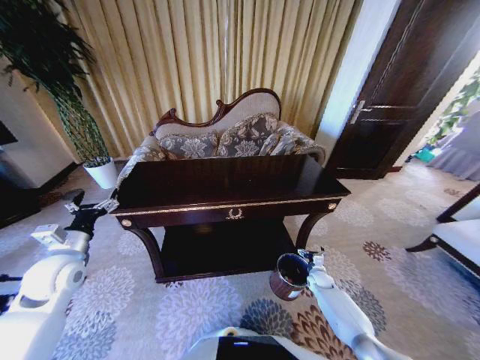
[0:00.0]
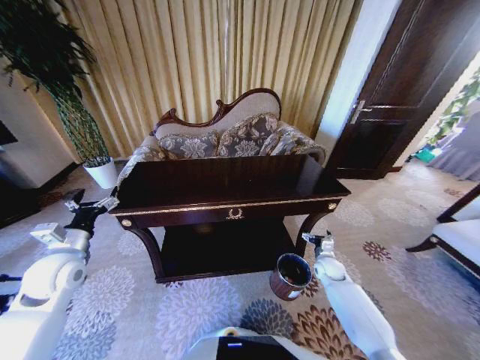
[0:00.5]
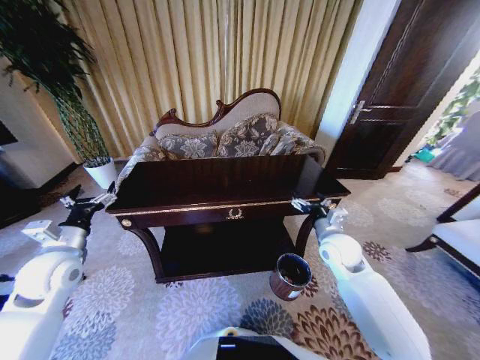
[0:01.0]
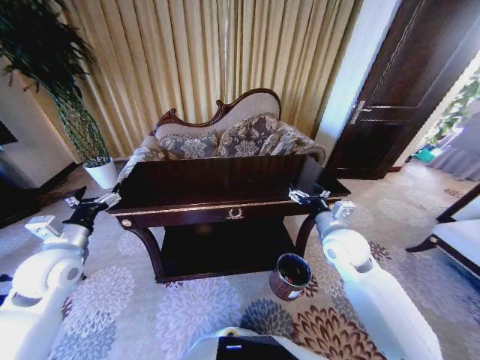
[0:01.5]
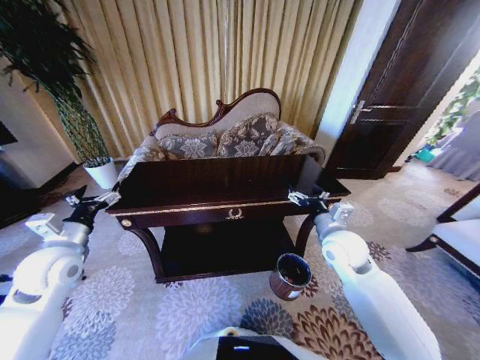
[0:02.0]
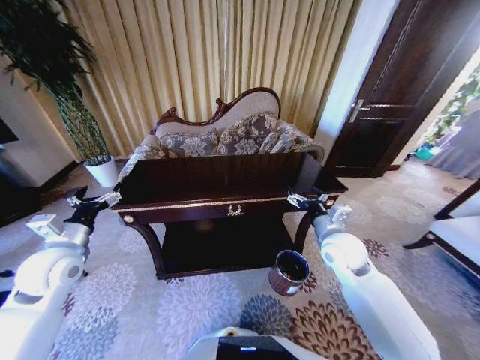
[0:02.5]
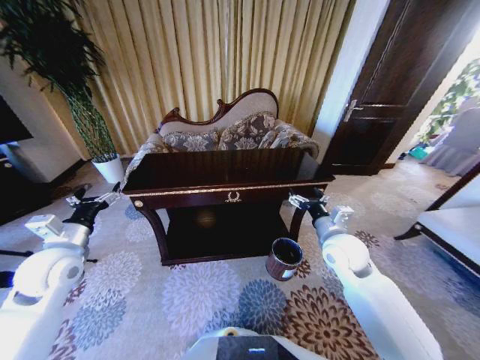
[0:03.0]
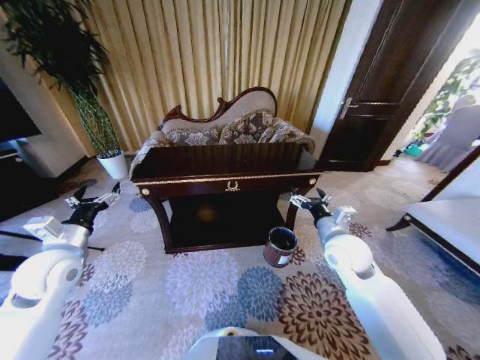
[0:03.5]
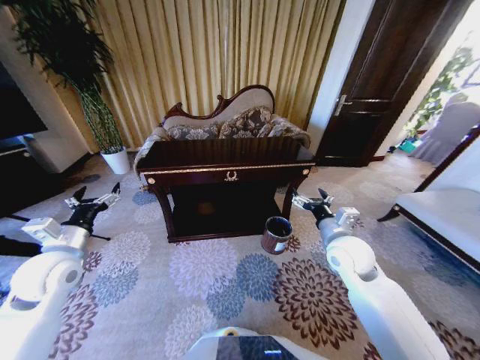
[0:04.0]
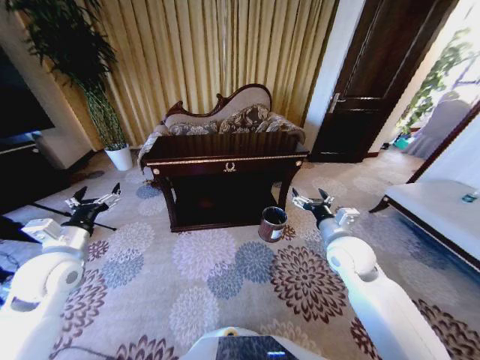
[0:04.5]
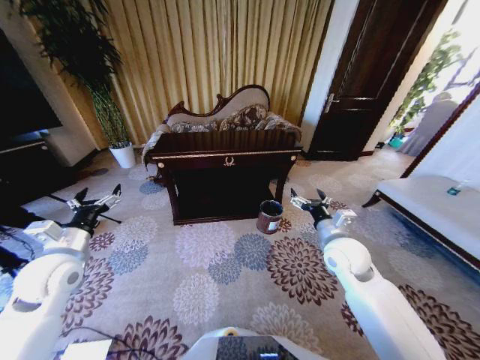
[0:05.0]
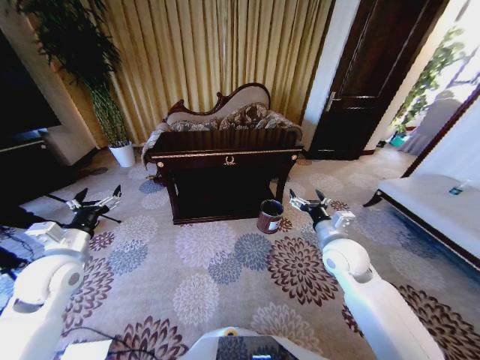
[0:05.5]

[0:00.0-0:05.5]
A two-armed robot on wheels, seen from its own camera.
Task of the whole recording: Move to the front of the table and place the trash on the table into the trash bin.
0:00.0 to 0:02.0: The right gripper goes some 35 cm upward.

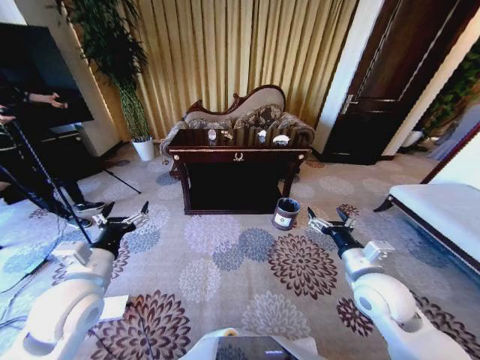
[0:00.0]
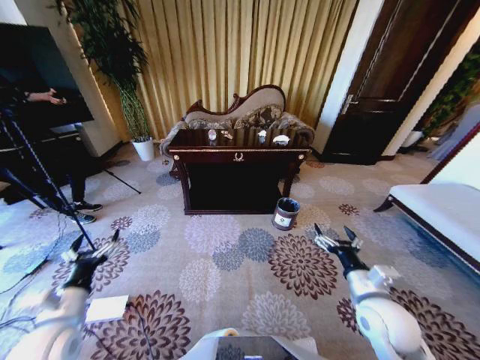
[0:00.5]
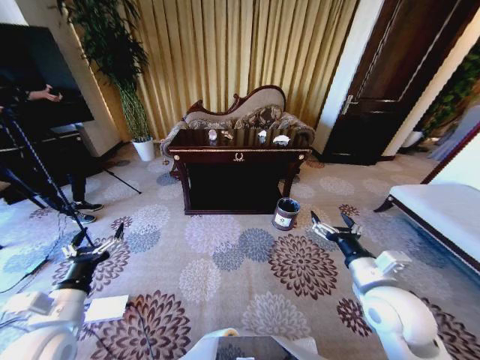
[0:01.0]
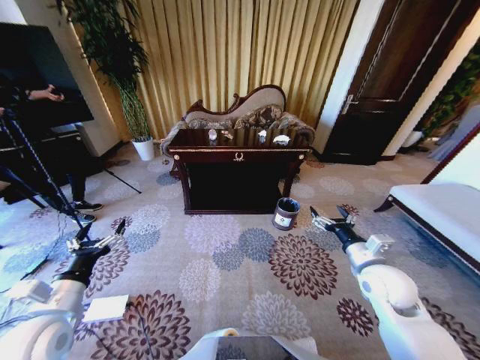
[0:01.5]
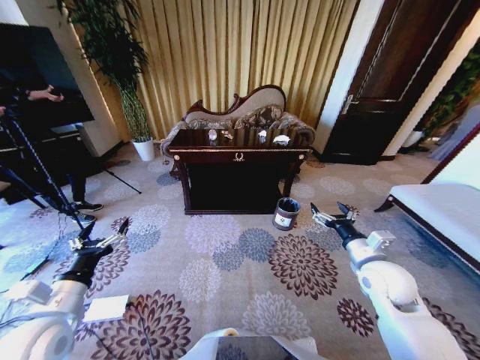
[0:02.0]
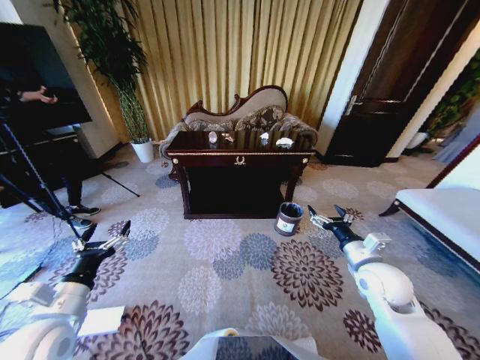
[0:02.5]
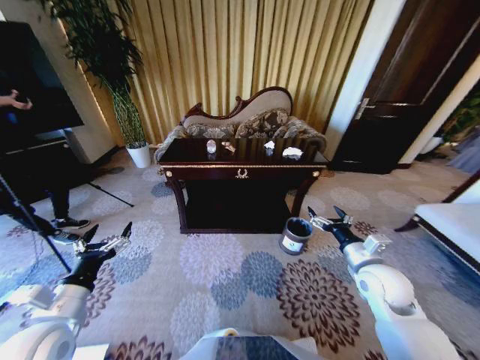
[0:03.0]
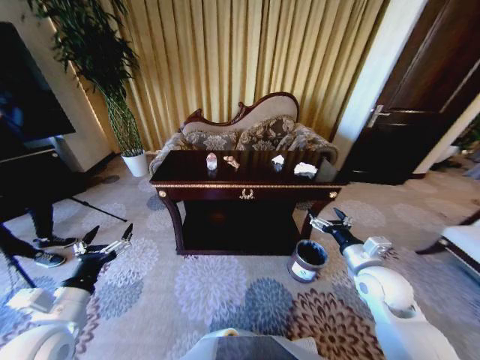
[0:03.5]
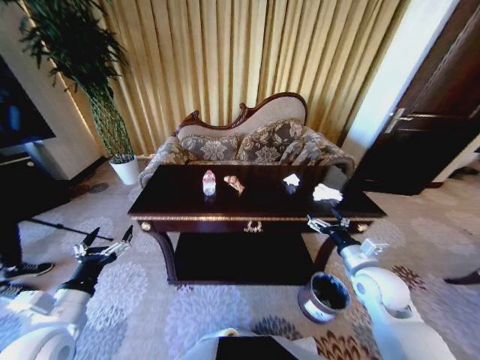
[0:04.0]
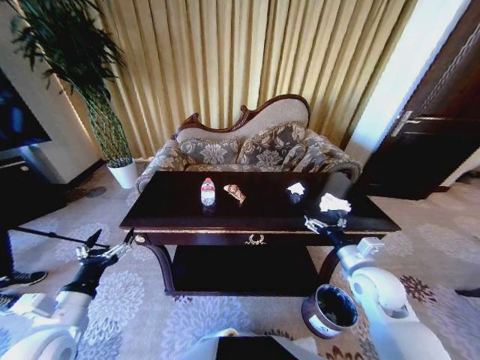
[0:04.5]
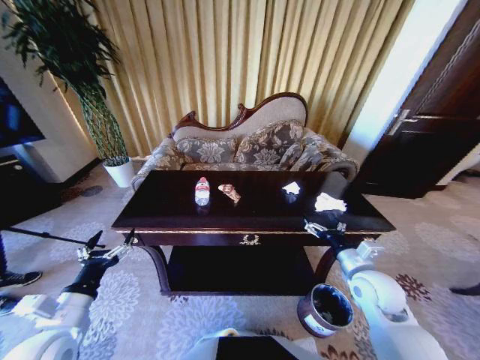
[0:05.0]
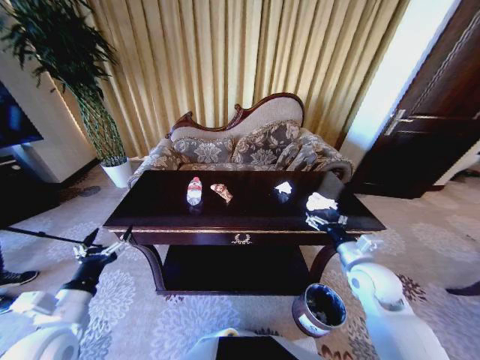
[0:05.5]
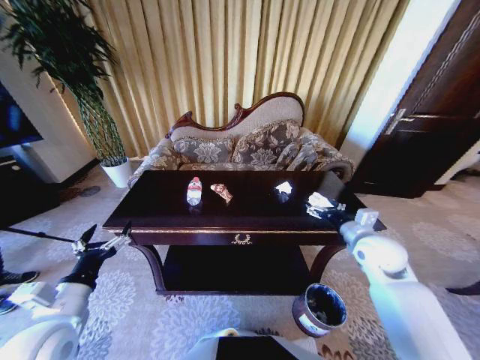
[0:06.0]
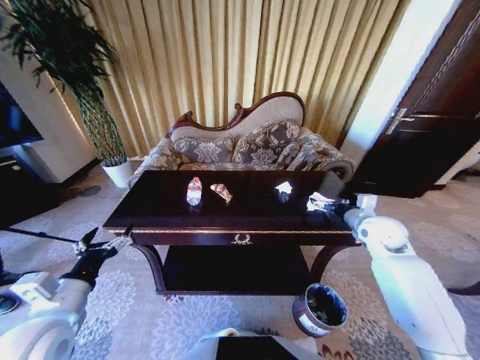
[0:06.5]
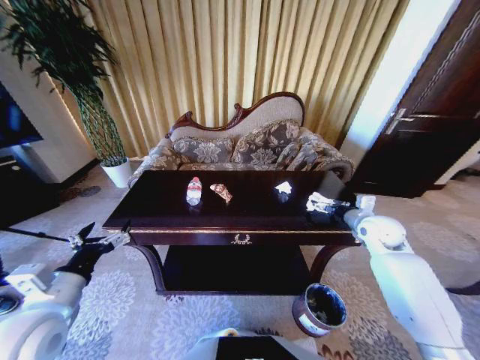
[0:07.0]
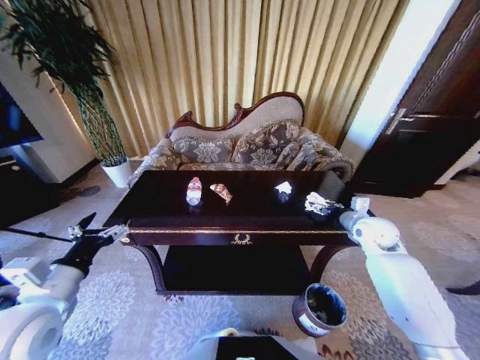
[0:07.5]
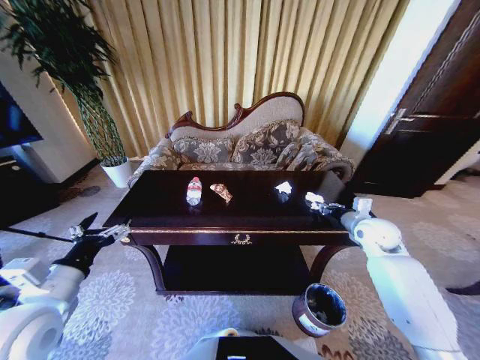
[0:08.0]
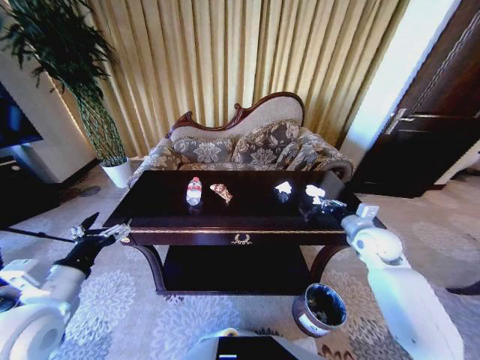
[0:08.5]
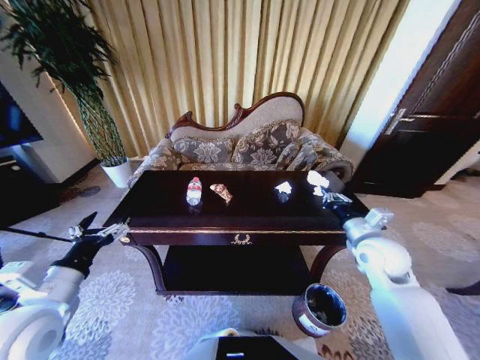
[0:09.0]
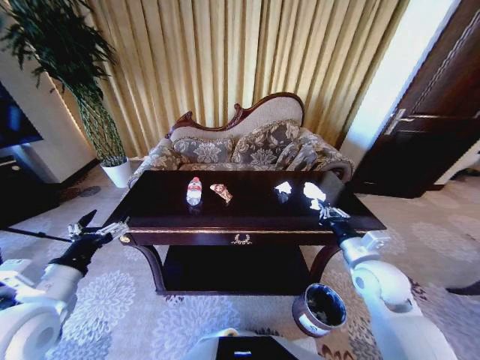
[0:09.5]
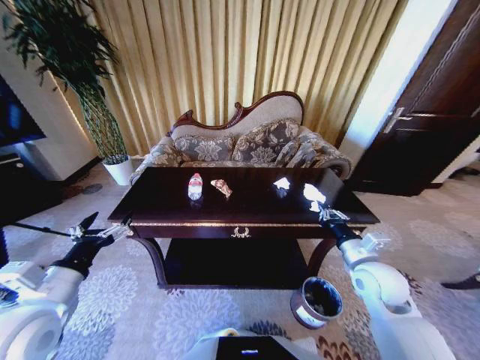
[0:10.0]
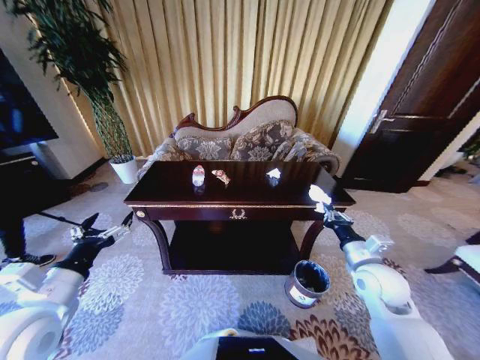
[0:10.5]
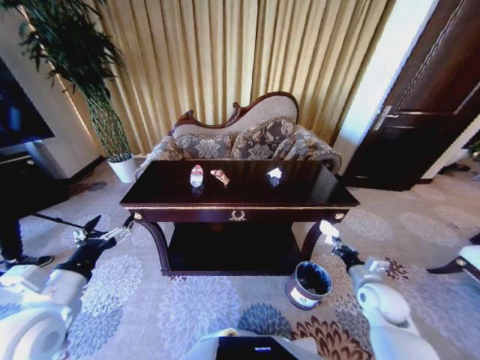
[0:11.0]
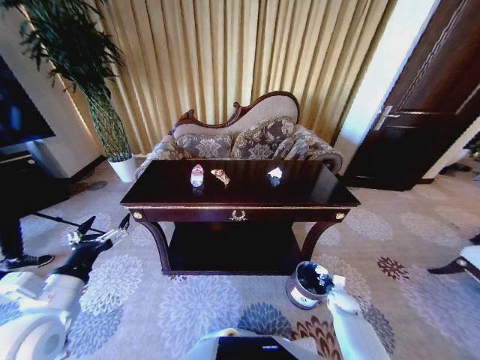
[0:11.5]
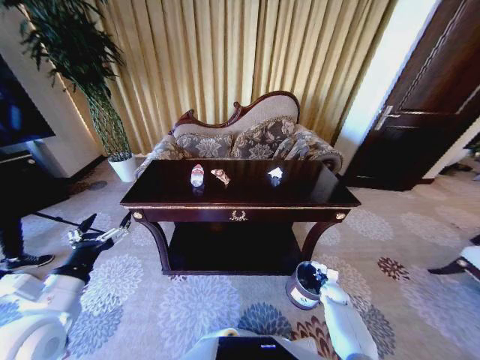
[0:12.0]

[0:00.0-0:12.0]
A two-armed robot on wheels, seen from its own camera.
Task of the whole recording: Move to the front of the table and place the trash on the table into the trash bin.
0:04.0 to 0:06.0: The right gripper shifts about 5 cm forward.
0:06.0 to 0:08.0: The left gripper moves about 5 cm, while the right gripper heads forward, covering some 5 cm, and closes up.
0:08.0 to 0:10.0: The right gripper is displaced backward and to the left by roughly 15 cm.
0:10.0 to 0:12.0: The right gripper shifts some 35 cm downward, and opens its fingers.

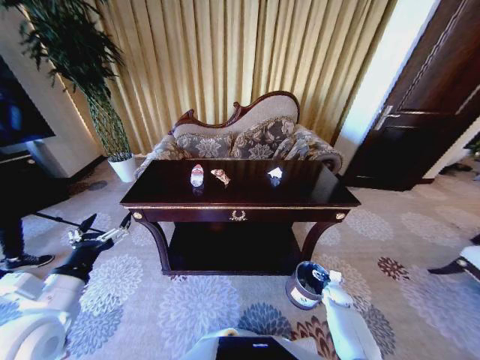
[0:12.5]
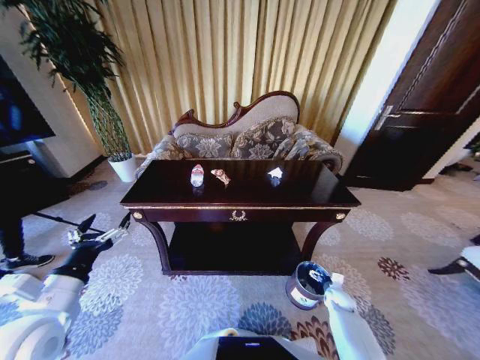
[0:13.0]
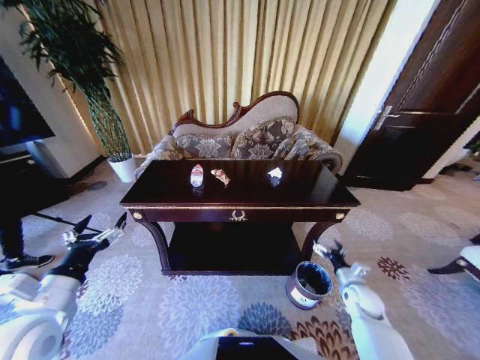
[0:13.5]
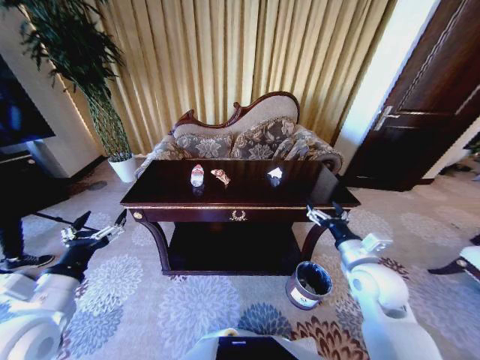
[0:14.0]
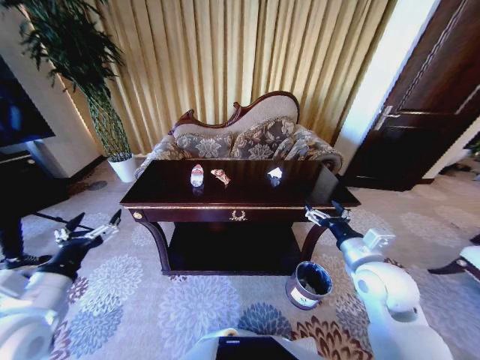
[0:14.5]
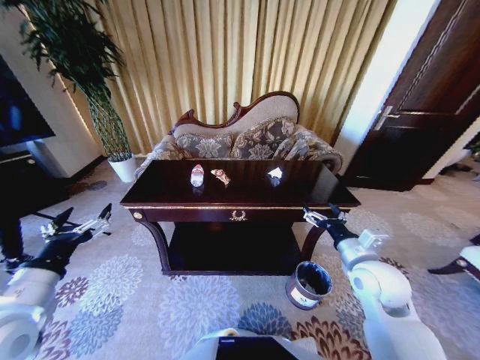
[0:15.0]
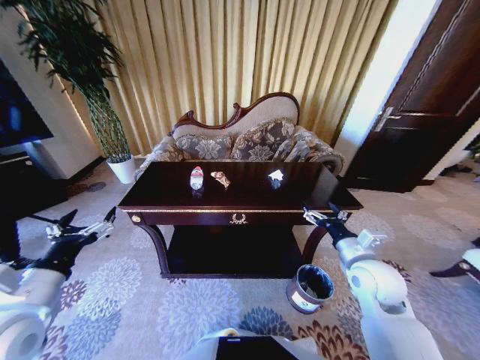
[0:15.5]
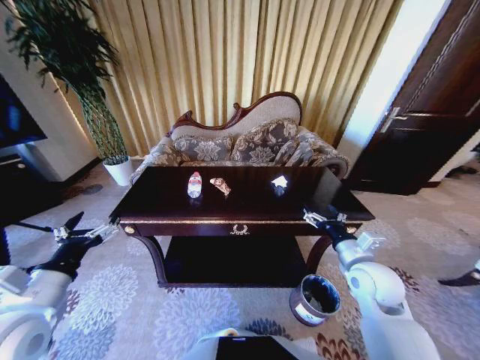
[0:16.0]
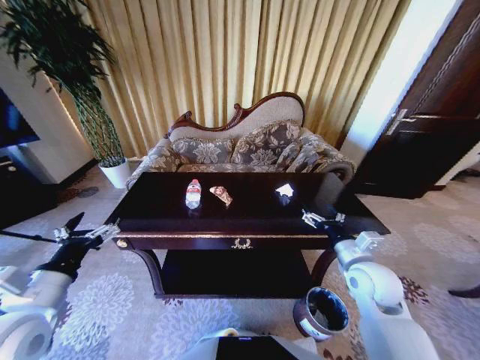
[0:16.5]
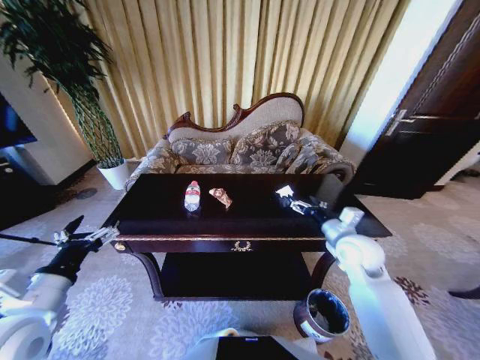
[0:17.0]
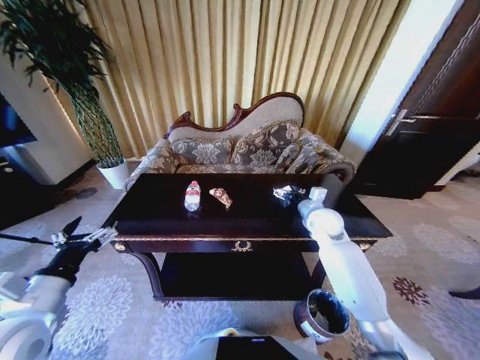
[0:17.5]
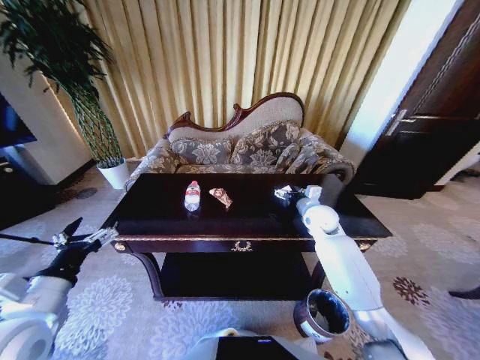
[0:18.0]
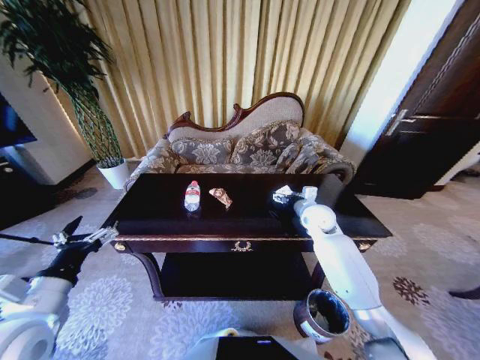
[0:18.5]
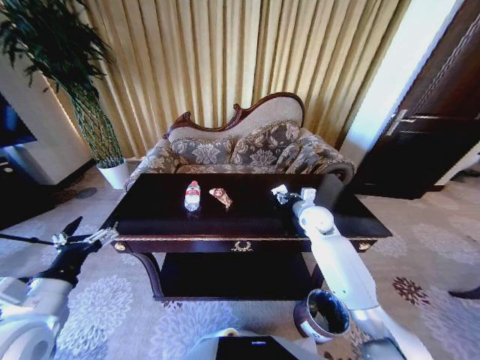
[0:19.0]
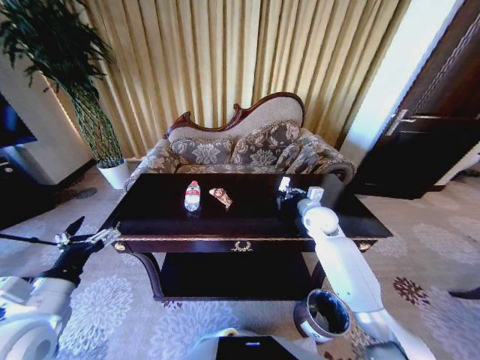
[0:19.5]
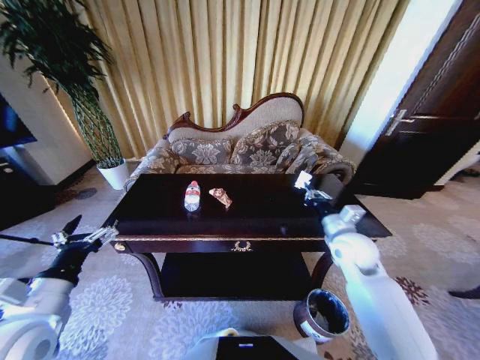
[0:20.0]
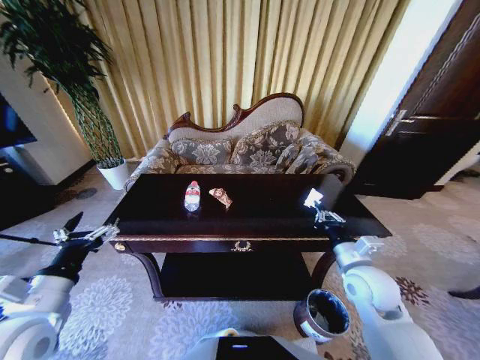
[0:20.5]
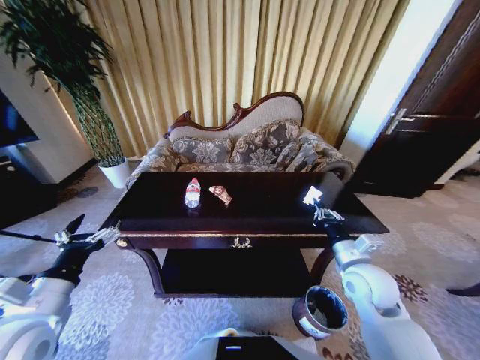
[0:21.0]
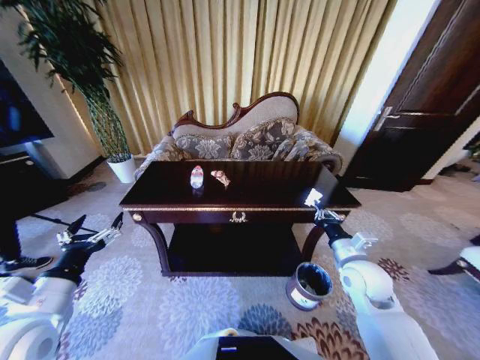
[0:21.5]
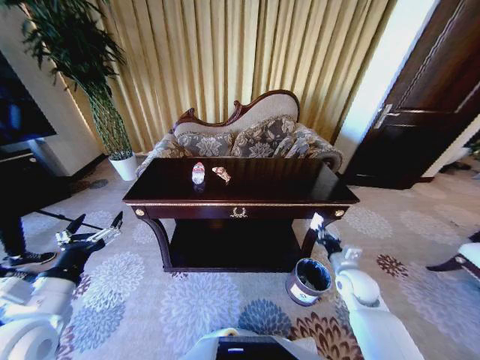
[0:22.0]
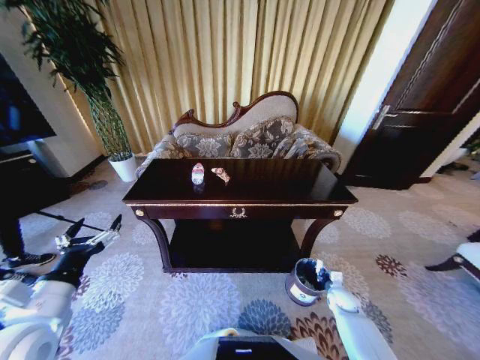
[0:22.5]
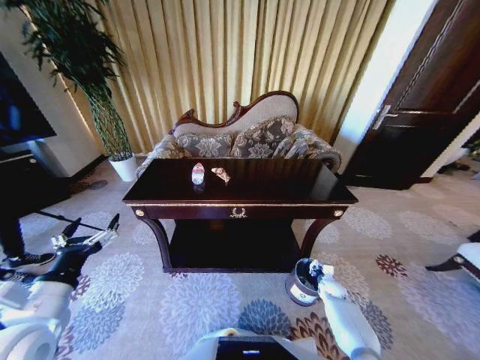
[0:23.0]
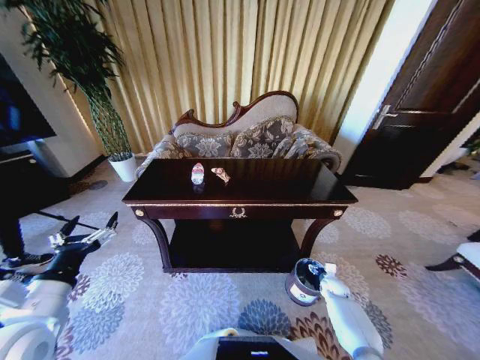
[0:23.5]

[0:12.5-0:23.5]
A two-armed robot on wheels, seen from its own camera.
Task of the whole recording: Move to the front of the table and place the trash on the table into the trash bin.
0:12.5 to 0:14.5: The right gripper travels upward by about 35 cm.
0:16.0 to 0:18.0: The right gripper is displaced forward by some 20 cm.
0:18.0 to 0:20.0: The right gripper goes approximately 10 cm backward, and closes its fingers.
0:20.0 to 0:21.5: The right gripper goes about 5 cm backward.
0:21.5 to 0:23.5: The right gripper goes roughly 30 cm downward, and opens.
